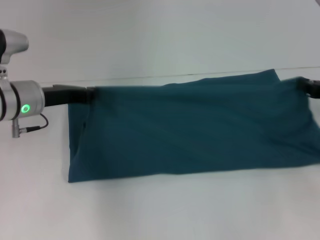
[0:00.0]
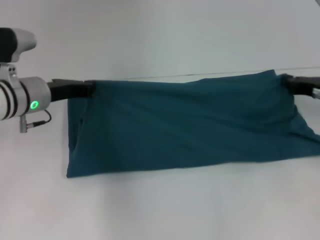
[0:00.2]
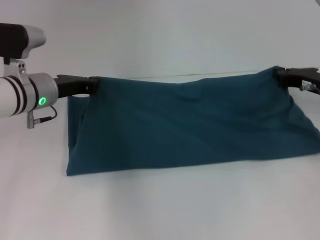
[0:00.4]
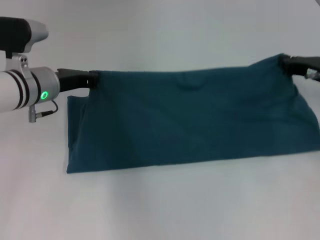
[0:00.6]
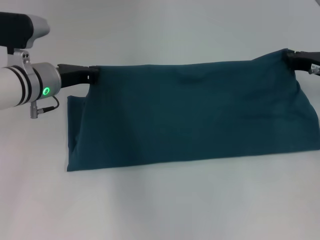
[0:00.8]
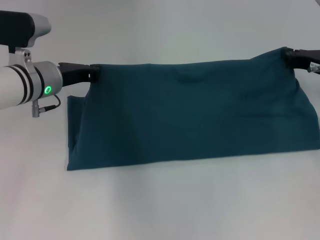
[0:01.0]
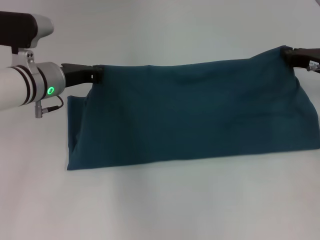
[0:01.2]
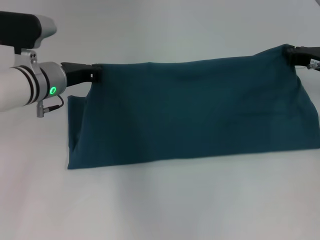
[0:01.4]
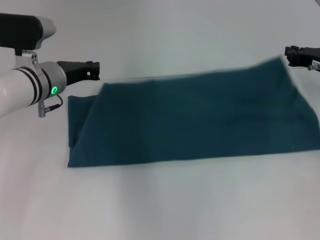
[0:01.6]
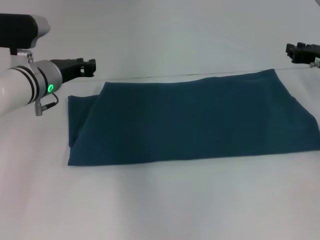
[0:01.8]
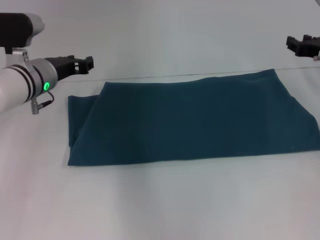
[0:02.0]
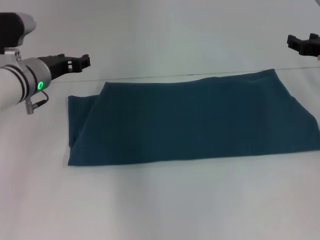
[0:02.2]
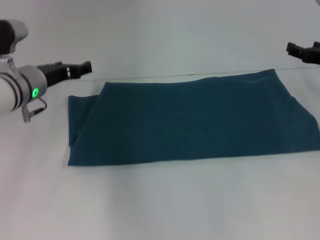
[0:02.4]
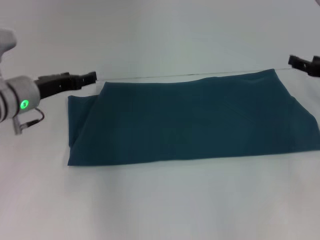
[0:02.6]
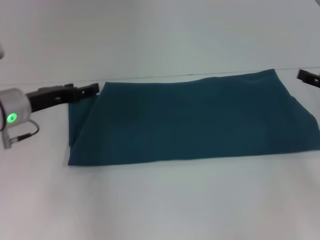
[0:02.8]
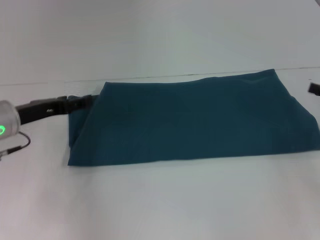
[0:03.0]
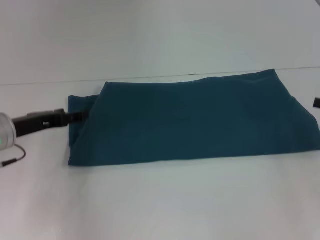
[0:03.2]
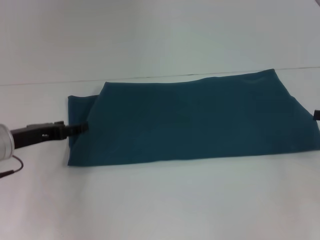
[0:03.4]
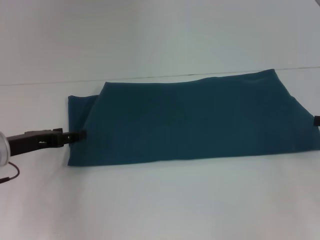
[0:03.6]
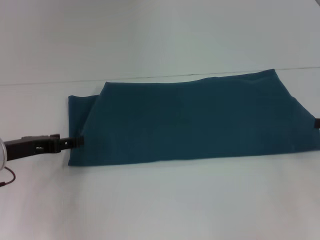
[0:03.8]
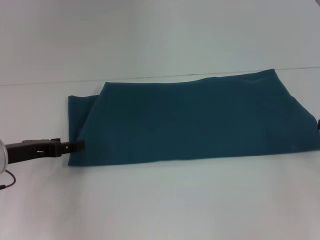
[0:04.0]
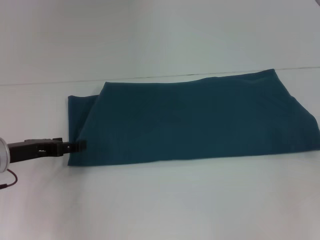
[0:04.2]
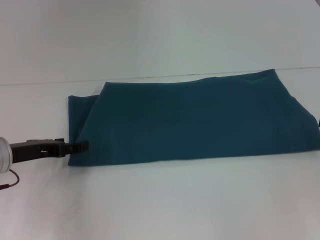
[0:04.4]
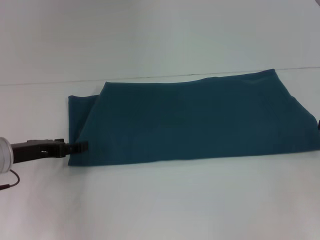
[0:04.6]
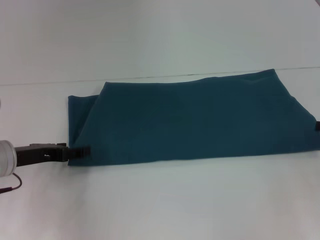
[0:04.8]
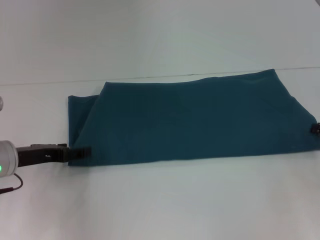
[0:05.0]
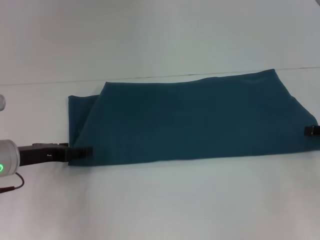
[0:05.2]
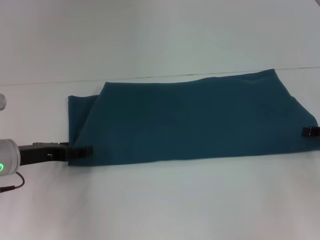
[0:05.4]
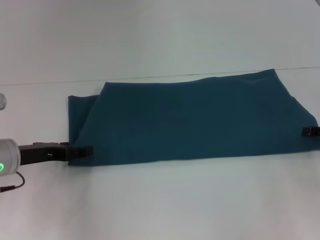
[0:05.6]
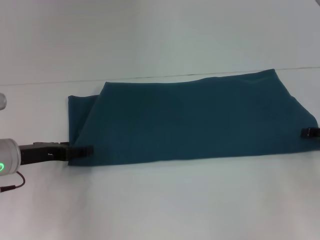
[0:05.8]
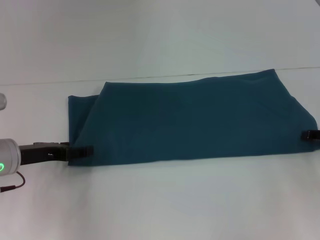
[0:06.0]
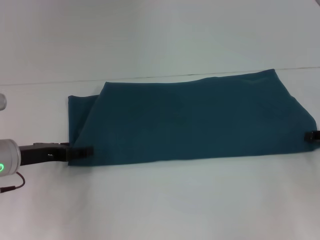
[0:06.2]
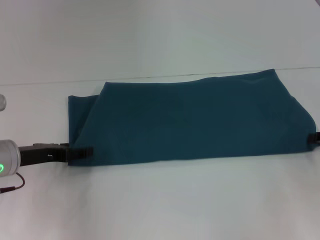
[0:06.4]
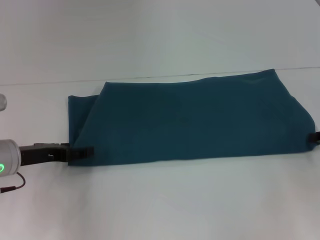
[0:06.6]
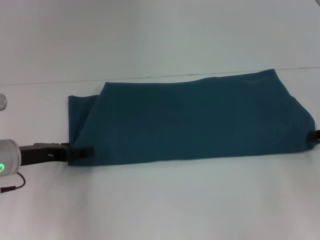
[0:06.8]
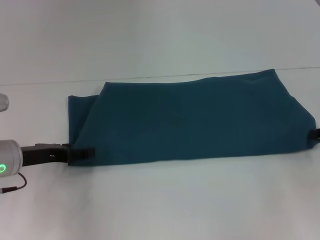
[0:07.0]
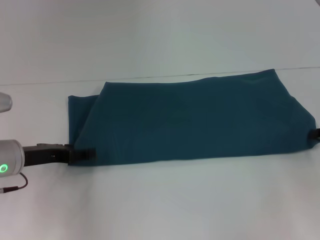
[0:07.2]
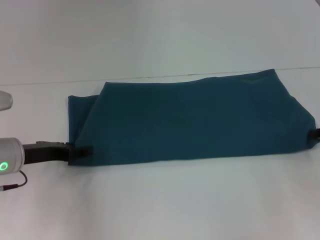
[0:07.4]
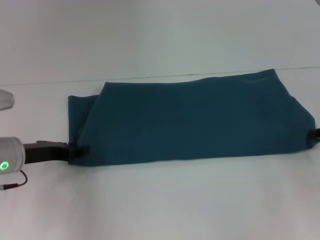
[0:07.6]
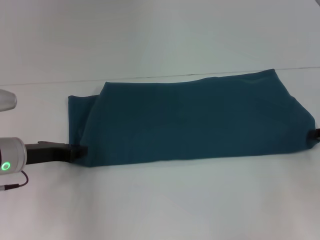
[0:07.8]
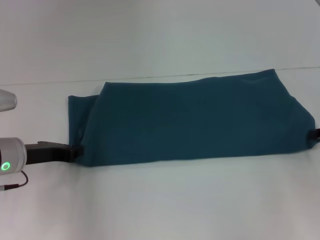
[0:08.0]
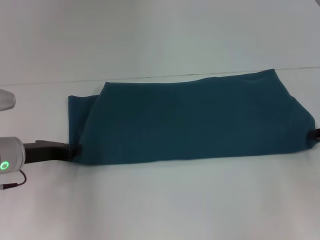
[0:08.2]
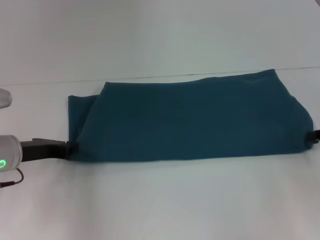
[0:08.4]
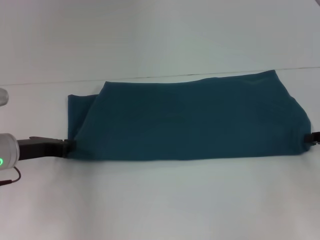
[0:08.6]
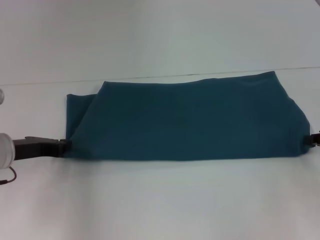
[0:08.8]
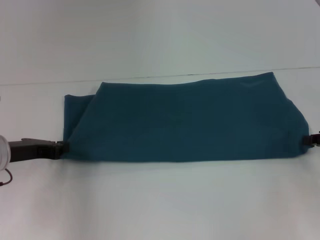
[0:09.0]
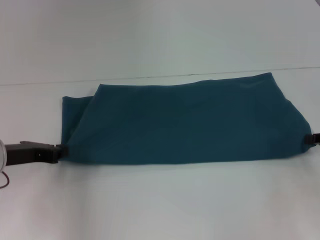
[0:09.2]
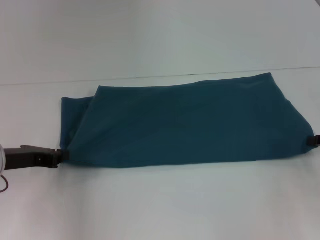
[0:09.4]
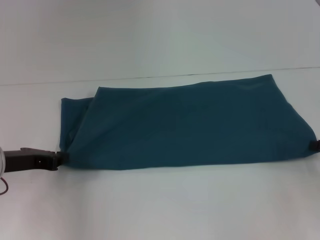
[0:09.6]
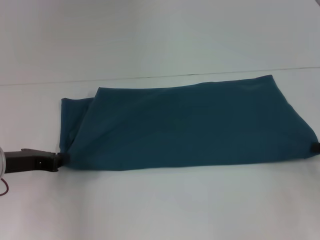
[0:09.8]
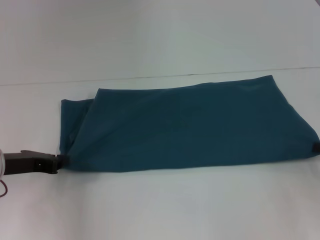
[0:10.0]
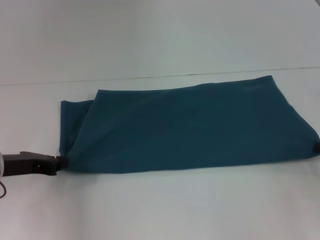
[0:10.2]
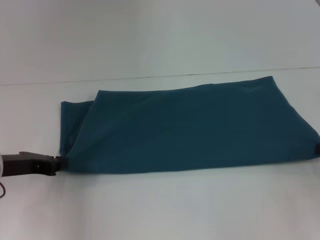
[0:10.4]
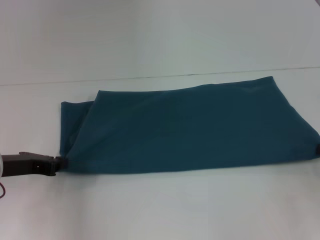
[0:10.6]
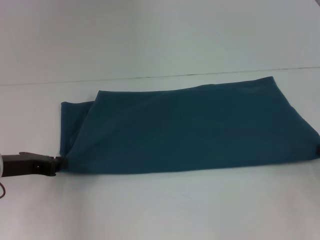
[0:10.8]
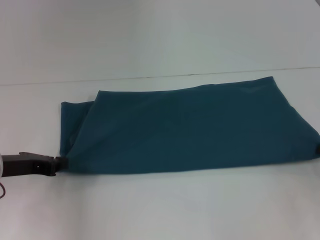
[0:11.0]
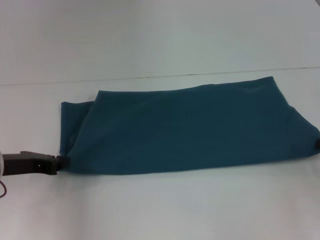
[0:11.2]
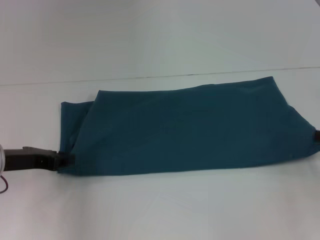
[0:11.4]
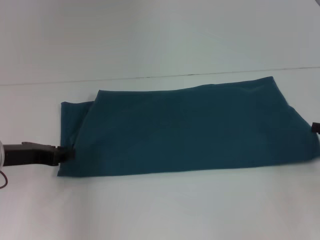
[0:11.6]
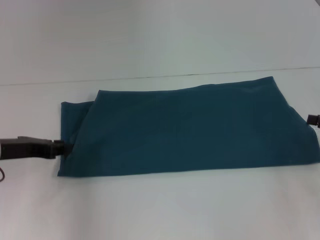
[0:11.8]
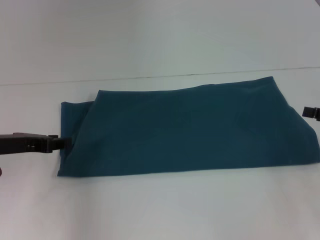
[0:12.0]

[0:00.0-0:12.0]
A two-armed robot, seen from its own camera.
Step, 0:00.0 to 0:01.6: Fold the clothes to the right.
0:00.0 to 0:01.6: The right gripper moves forward, approximately 5 cm.
0:01.6 to 0:03.0: The left gripper moves to the left and backward, approximately 10 cm, and opens its fingers. The right gripper heads backward and to the right, covering roughly 15 cm, and opens up.
0:03.0 to 0:04.4: There are only small adjustments of the grippers.
0:07.6 to 0:09.0: The left gripper closes up.
0:09.0 to 0:10.4: There are only small adjustments of the grippers.
0:10.4 to 0:12.0: The right gripper opens up.

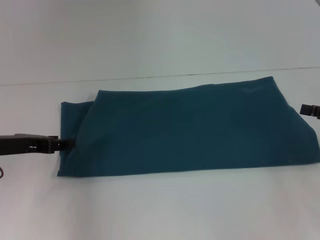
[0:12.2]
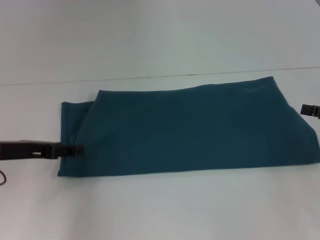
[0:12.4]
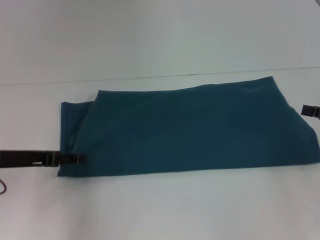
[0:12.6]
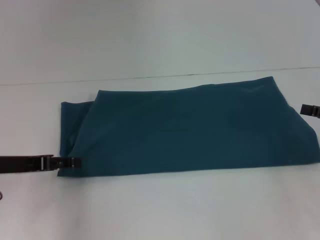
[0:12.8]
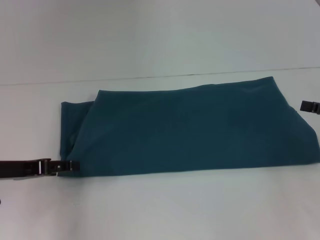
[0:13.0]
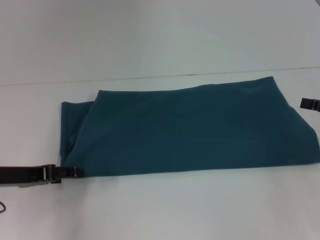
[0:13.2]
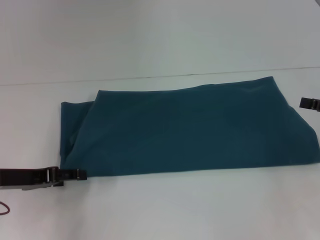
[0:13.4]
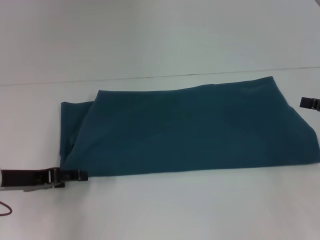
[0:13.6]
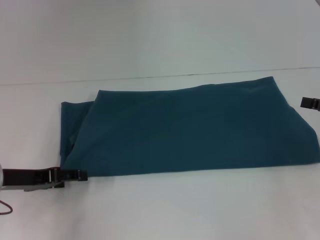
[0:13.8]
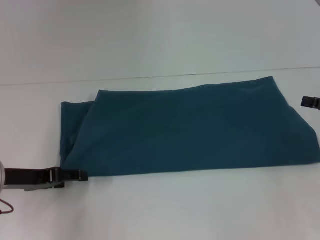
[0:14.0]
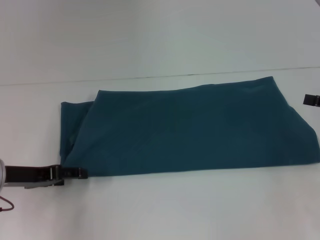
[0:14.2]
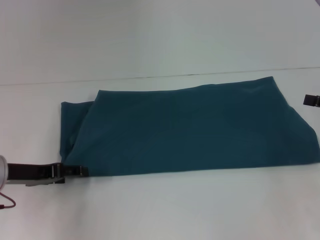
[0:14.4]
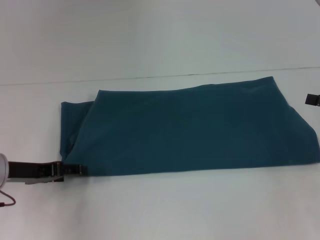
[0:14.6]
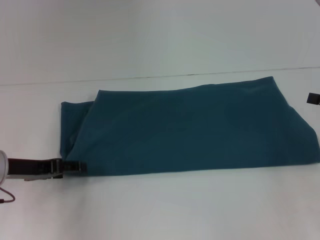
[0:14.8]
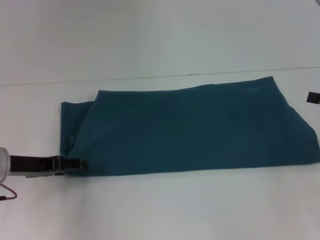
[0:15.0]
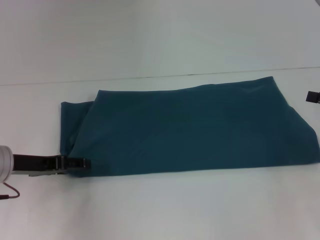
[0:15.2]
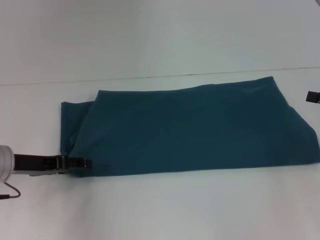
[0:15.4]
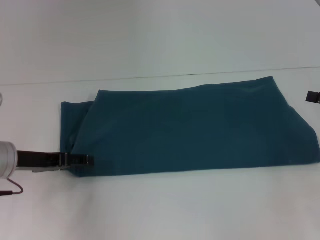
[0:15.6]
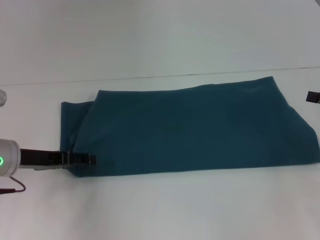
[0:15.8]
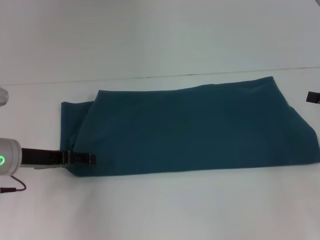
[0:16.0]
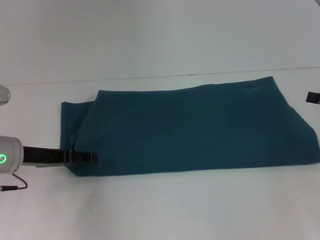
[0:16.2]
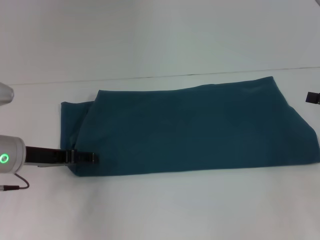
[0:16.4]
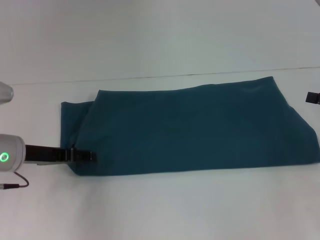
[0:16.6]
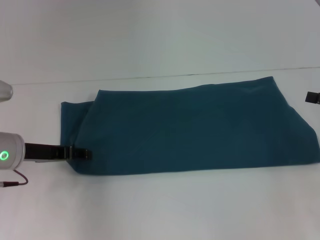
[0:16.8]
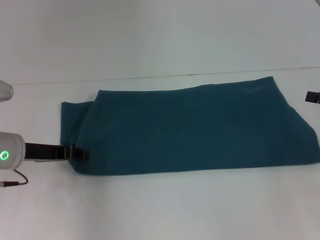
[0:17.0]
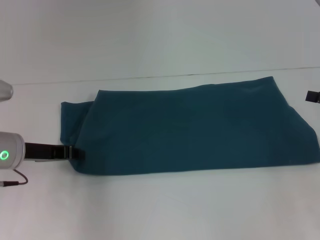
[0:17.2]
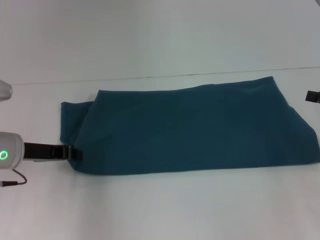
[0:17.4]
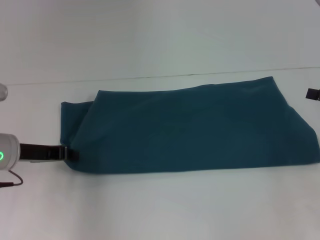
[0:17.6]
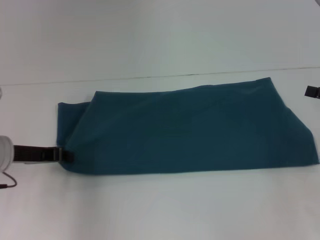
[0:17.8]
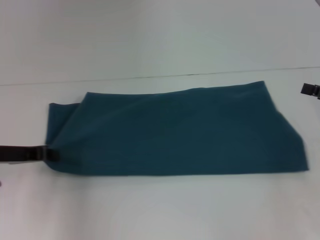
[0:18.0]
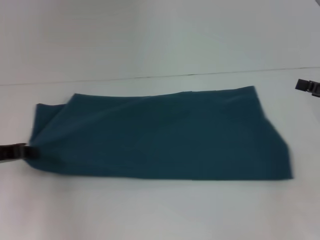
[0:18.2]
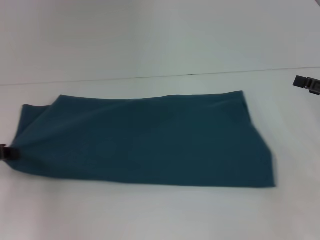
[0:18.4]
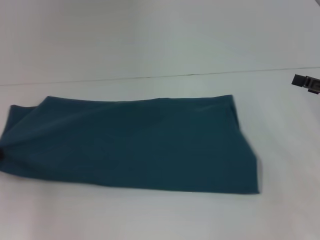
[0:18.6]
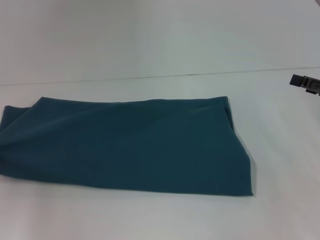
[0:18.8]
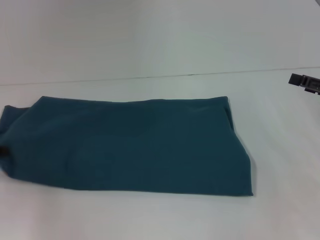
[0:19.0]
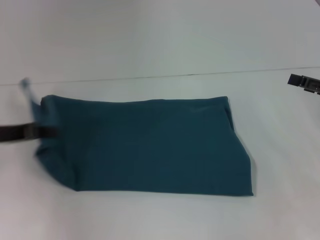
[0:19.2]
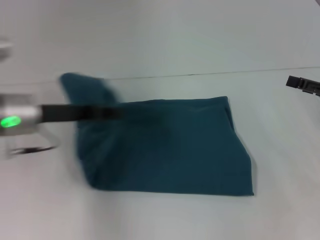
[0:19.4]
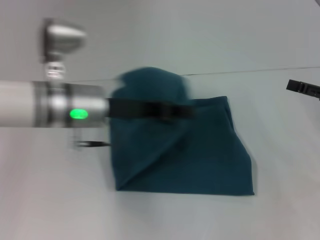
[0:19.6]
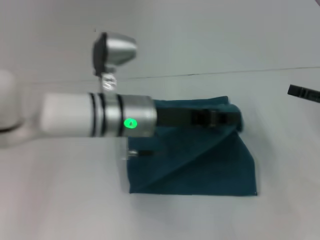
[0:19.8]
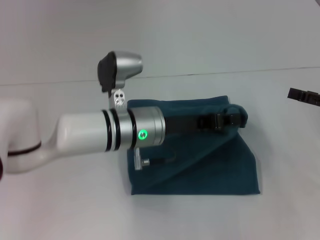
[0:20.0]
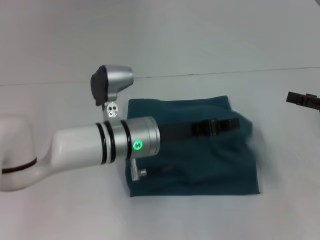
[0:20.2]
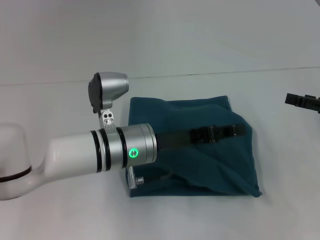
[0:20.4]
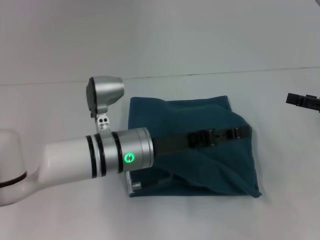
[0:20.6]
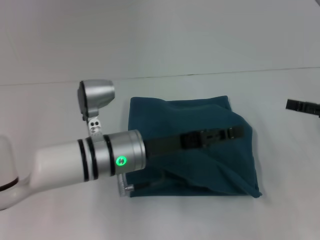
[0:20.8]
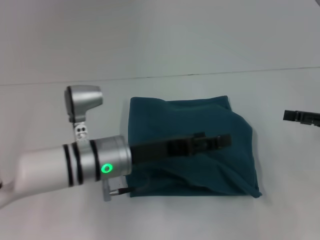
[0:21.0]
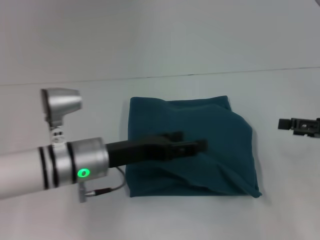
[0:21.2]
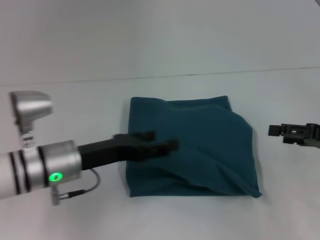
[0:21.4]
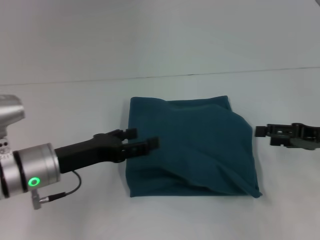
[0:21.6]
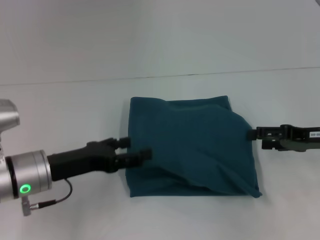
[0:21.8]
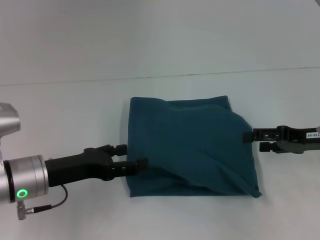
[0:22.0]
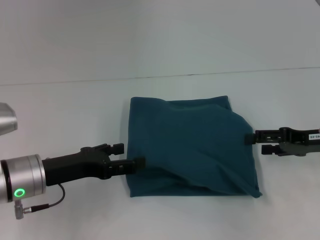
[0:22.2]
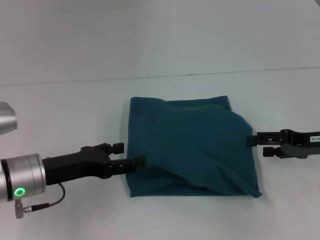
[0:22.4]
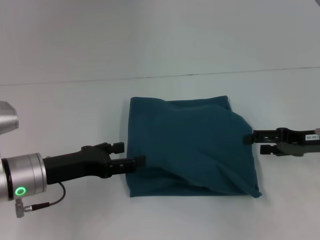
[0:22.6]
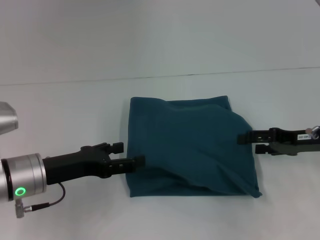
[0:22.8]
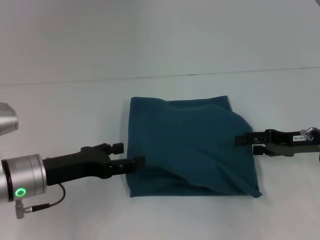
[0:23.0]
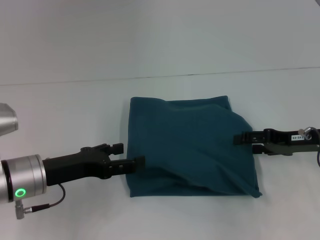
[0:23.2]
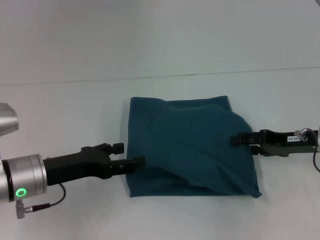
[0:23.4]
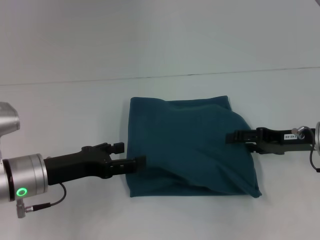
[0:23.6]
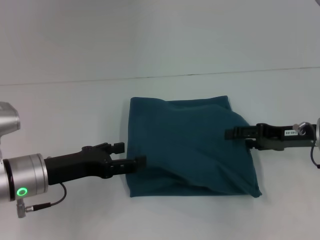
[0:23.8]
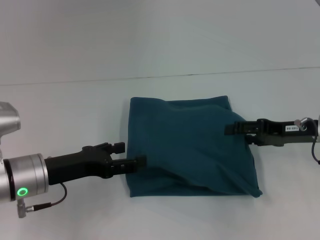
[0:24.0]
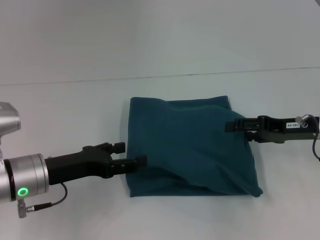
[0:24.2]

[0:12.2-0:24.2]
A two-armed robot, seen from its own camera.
Step, 0:12.2 to 0:20.2: Fold the clothes to the left.
0:12.2 to 0:13.8: The left gripper opens.
0:13.8 to 0:16.6: The grippers stay close to where they were, moving slightly.
0:16.6 to 0:18.2: The left gripper moves to the left, some 5 cm, and closes up.
0:18.2 to 0:19.8: The left gripper heads to the right, covering some 25 cm.
0:19.8 to 0:21.2: The left gripper is displaced to the left by about 5 cm, and opens.
0:21.2 to 0:22.6: The left gripper moves to the left, approximately 10 cm. Meanwhile the right gripper moves approximately 5 cm.
0:22.6 to 0:24.2: The grippers make only small movements.
